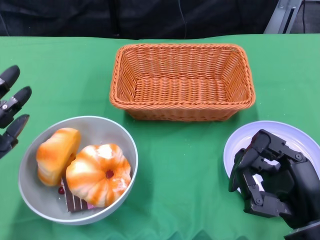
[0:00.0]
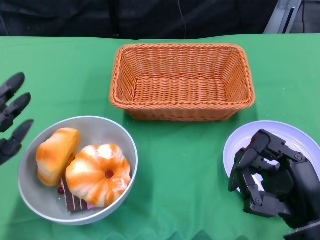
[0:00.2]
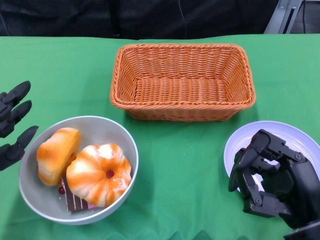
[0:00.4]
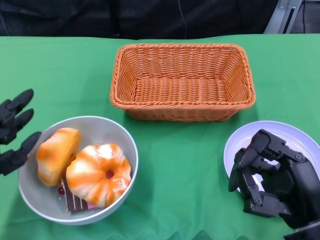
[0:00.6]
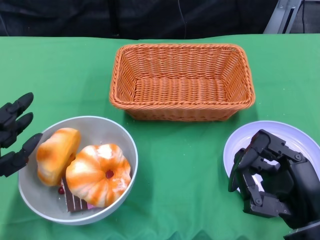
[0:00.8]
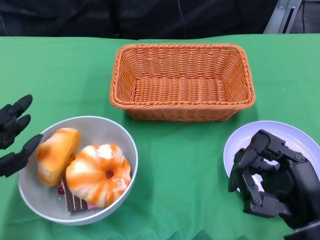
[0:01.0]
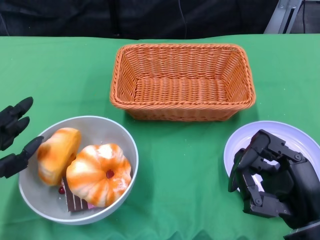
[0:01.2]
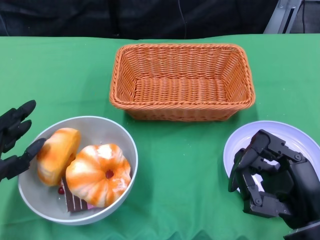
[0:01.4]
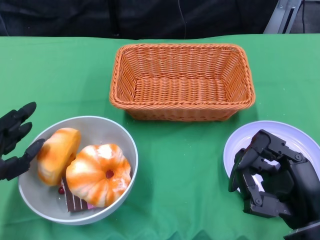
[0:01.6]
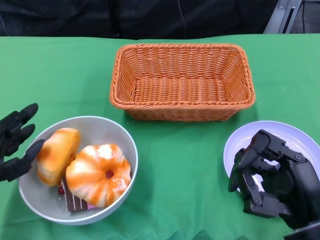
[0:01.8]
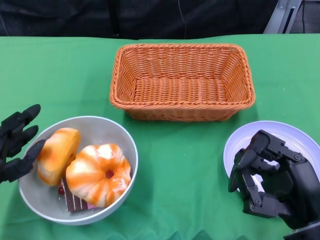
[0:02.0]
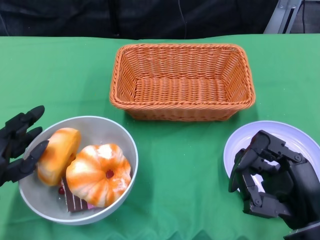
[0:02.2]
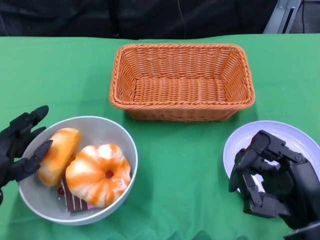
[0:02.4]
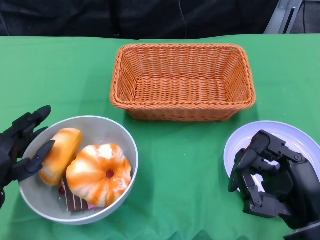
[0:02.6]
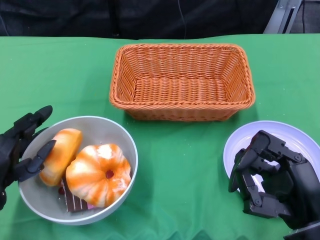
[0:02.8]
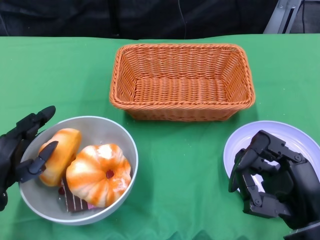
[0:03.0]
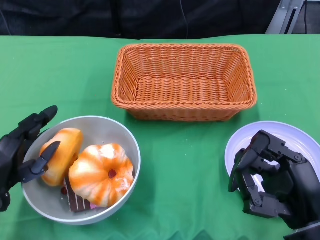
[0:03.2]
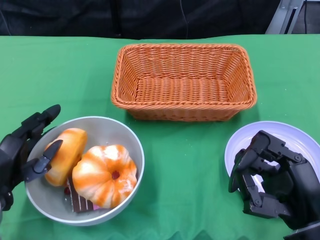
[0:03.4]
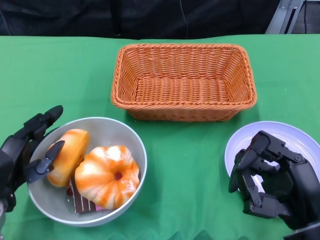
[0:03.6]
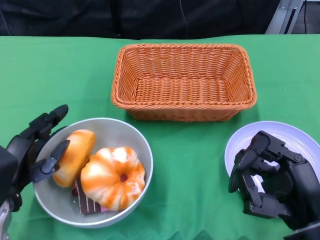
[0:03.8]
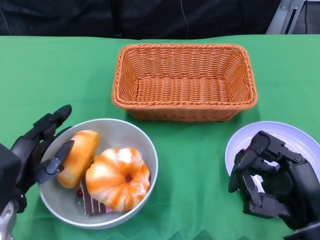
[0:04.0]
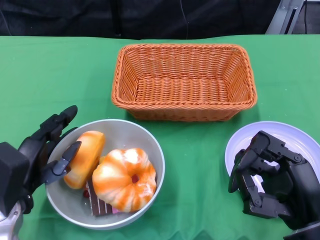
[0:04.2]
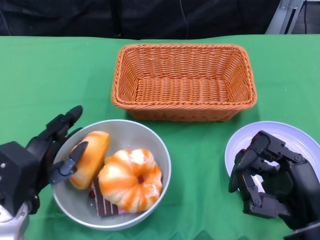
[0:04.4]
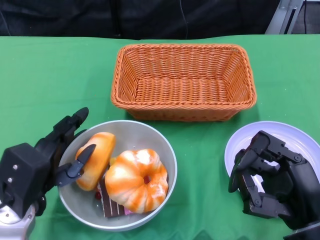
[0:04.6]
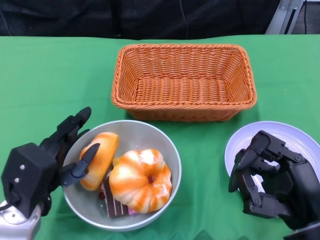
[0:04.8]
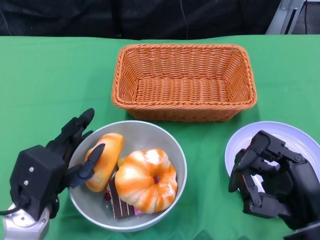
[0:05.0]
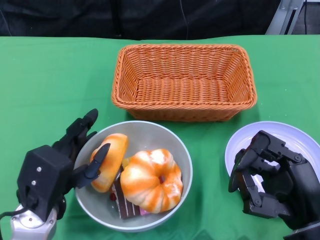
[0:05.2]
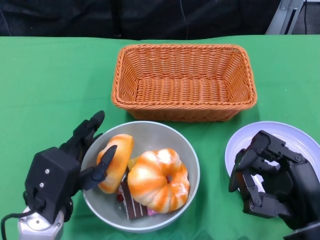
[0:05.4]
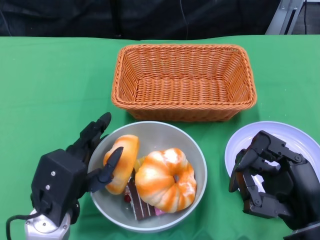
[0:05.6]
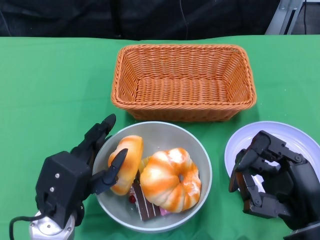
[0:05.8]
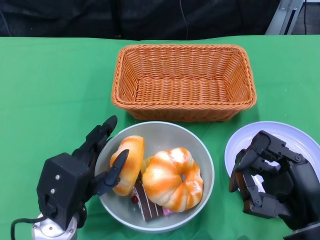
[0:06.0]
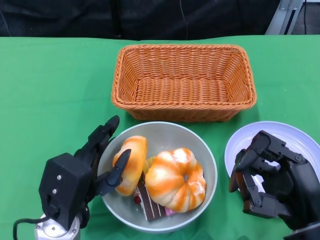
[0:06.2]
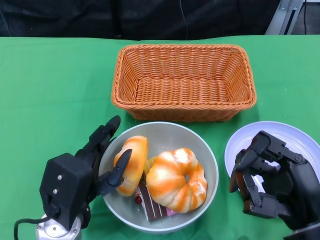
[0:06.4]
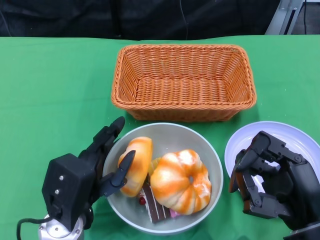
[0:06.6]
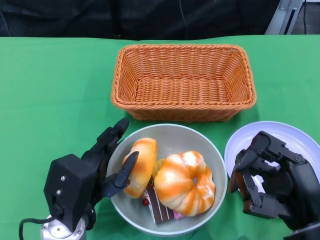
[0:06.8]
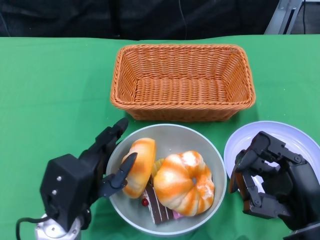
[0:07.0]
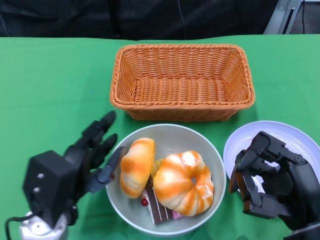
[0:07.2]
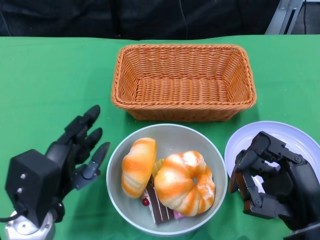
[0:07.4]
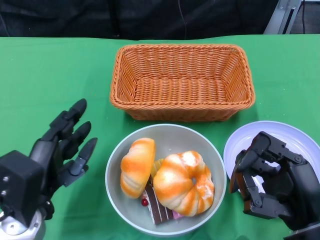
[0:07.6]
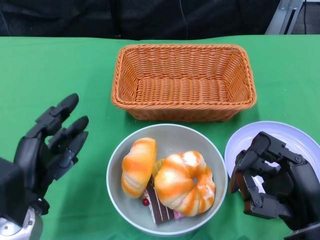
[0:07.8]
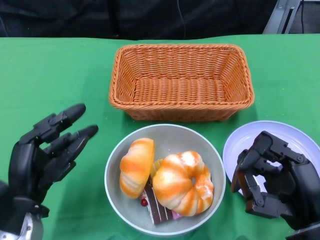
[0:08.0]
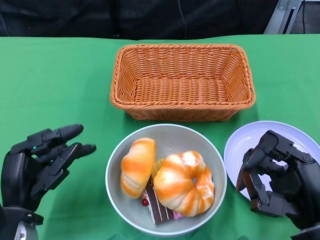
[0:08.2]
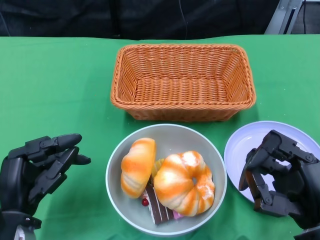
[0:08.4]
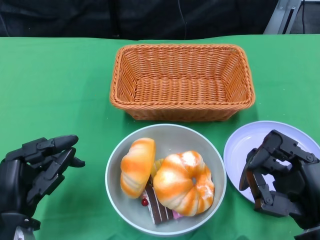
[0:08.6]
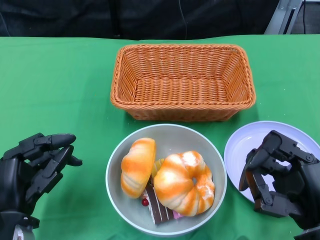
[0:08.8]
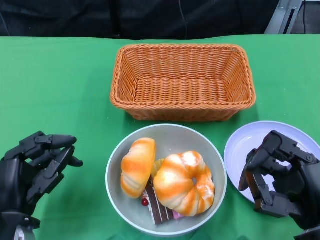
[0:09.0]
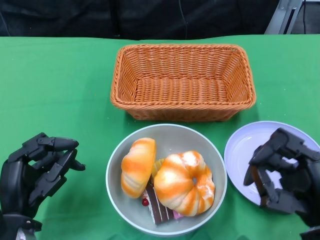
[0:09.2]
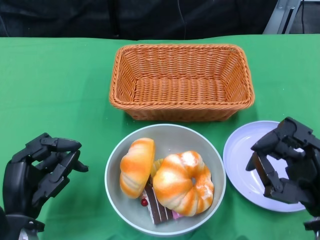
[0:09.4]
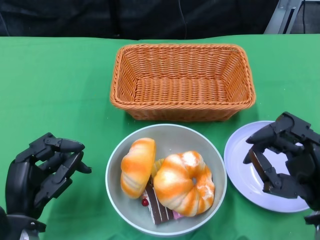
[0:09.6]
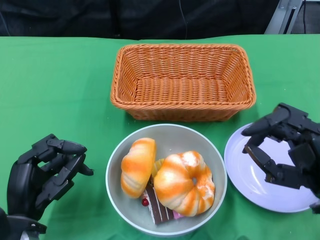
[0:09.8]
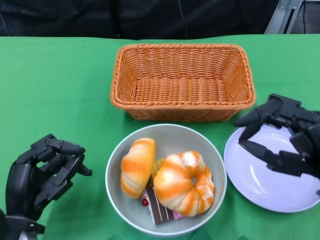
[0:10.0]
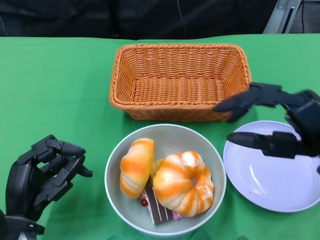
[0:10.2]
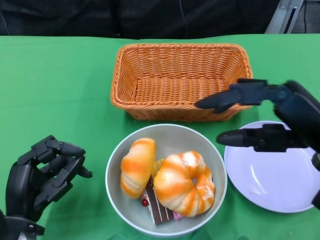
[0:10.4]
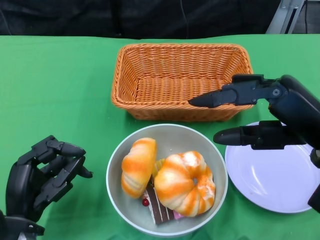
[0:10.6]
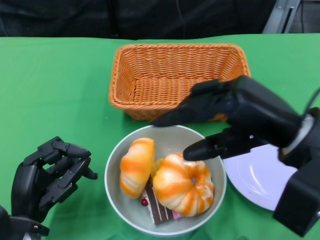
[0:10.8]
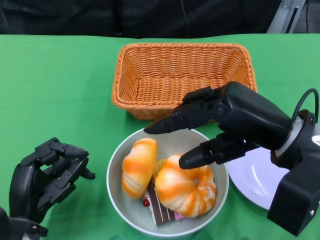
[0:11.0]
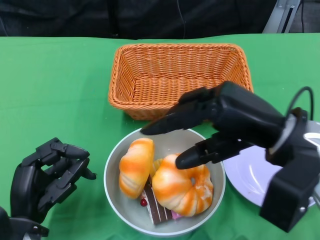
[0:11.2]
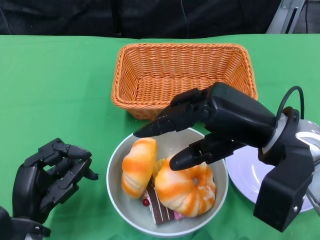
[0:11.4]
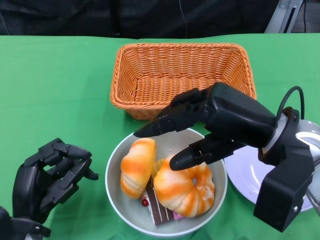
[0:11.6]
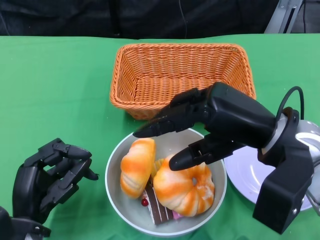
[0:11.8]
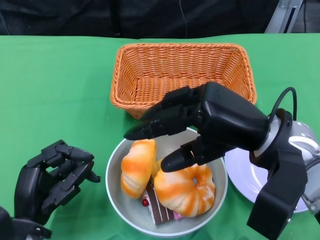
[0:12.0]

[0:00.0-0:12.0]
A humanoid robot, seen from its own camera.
Step, 0:00.0 to 0:08.6: Push the bowl to the center of the table using the left gripper.
0:01.6 to 0:03.0: The hands stay close to where they were, moving slightly.
0:04.4 to 0:06.0: The left hand heads to the right, covering roughly 5 cm.
0:07.6 to 0:09.0: There are only small adjustments of the hands.
0:09.0 to 0:10.4: The right hand goes approximately 10 cm upward and forward.
0:10.4 to 0:12.0: The right hand goes approximately 5 cm to the left.

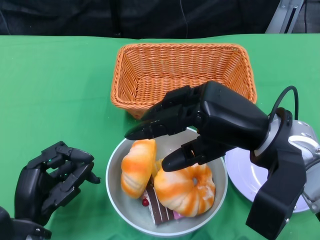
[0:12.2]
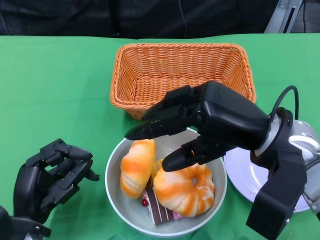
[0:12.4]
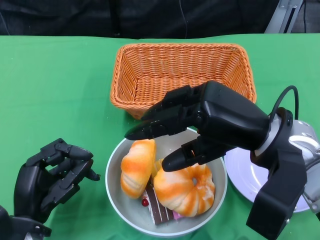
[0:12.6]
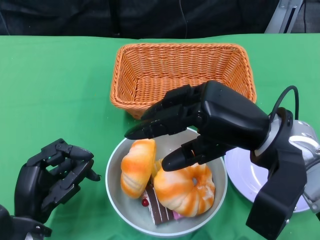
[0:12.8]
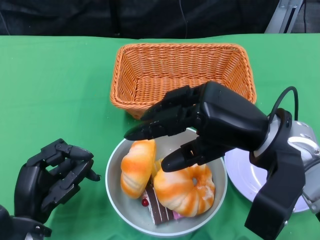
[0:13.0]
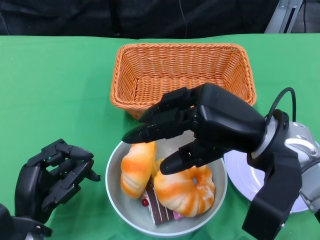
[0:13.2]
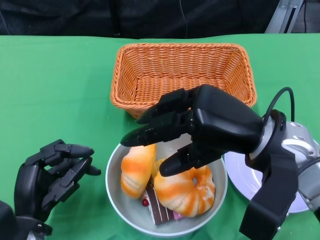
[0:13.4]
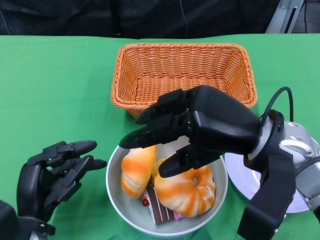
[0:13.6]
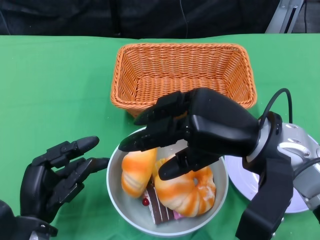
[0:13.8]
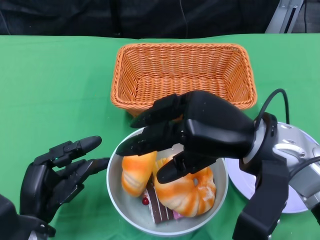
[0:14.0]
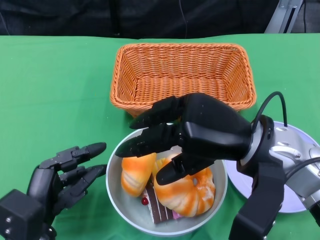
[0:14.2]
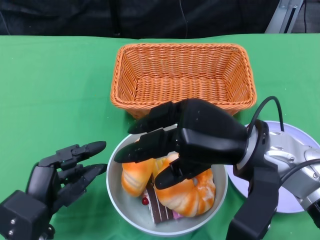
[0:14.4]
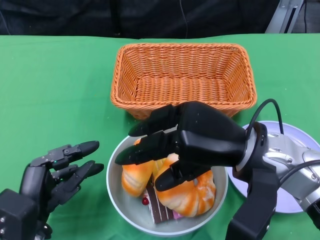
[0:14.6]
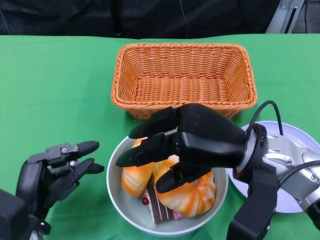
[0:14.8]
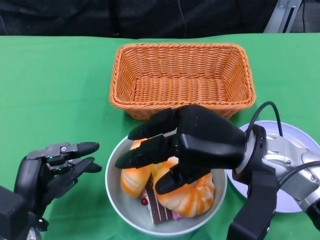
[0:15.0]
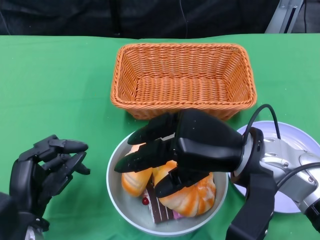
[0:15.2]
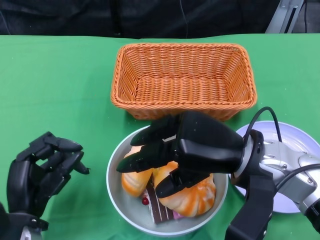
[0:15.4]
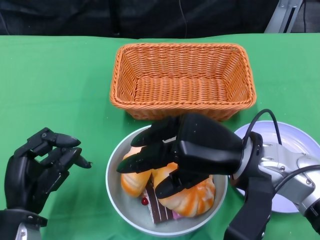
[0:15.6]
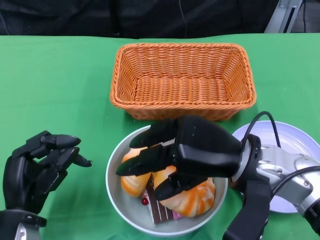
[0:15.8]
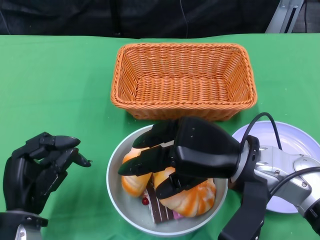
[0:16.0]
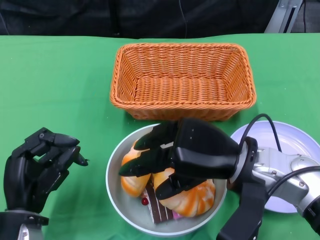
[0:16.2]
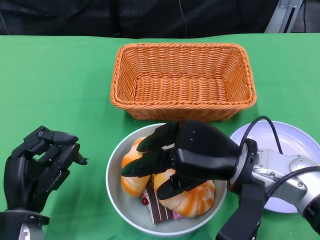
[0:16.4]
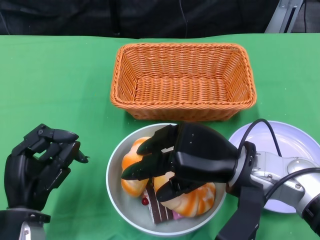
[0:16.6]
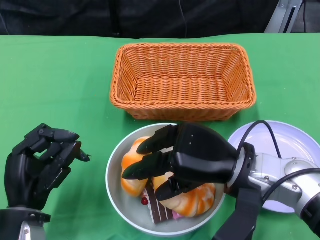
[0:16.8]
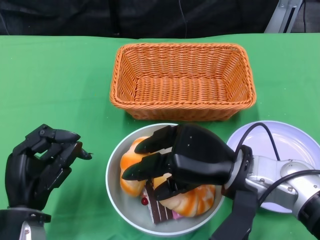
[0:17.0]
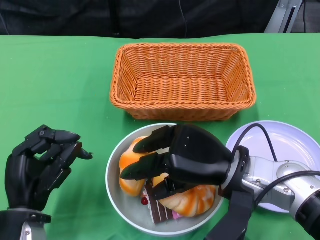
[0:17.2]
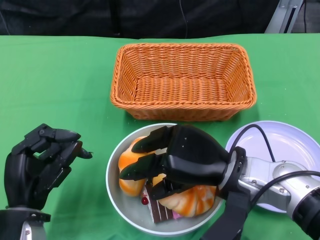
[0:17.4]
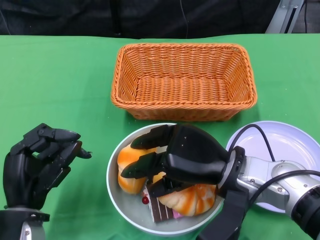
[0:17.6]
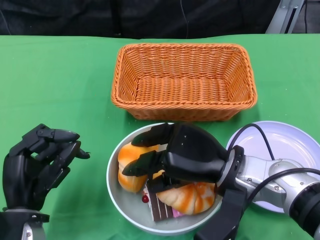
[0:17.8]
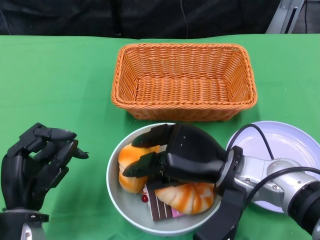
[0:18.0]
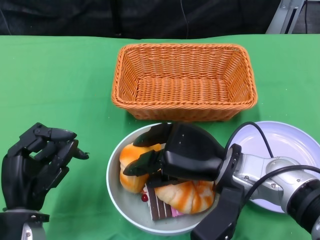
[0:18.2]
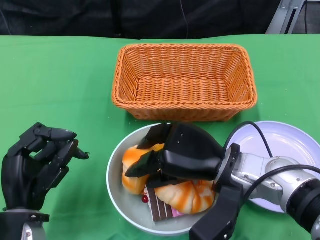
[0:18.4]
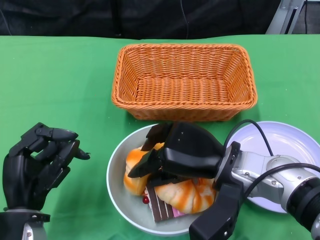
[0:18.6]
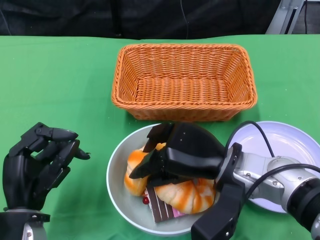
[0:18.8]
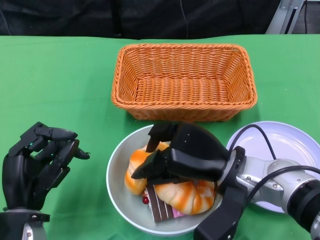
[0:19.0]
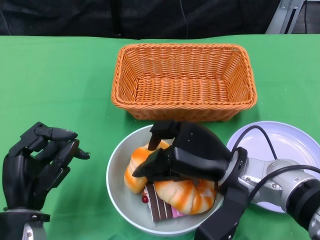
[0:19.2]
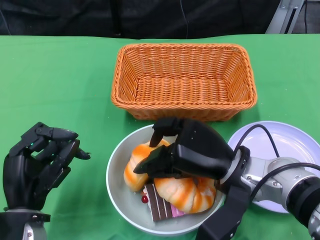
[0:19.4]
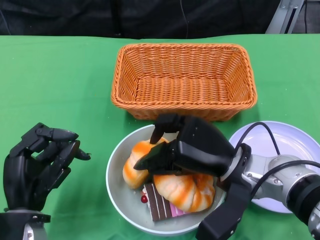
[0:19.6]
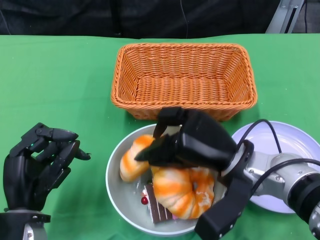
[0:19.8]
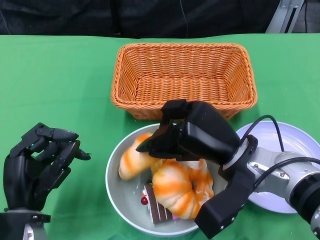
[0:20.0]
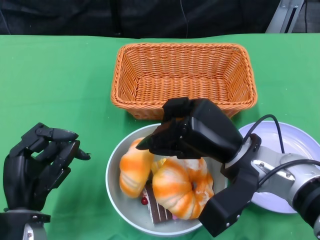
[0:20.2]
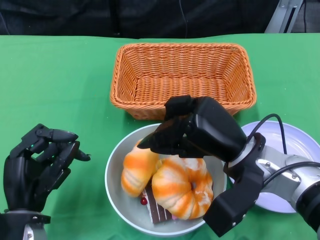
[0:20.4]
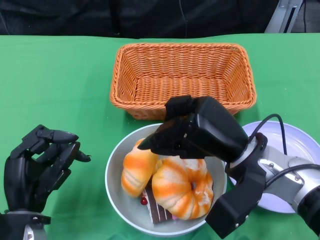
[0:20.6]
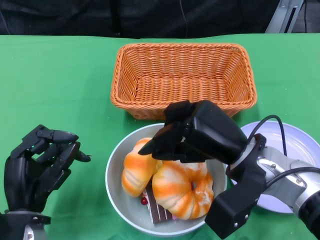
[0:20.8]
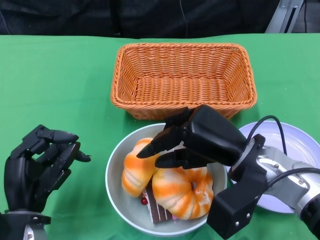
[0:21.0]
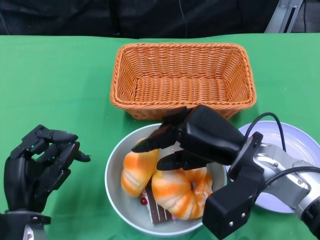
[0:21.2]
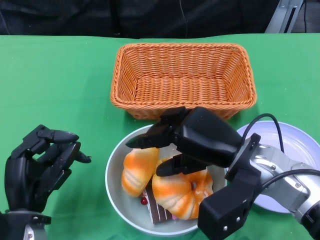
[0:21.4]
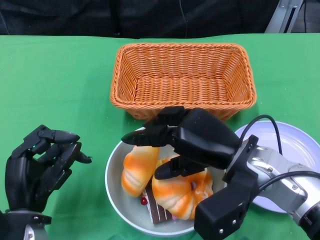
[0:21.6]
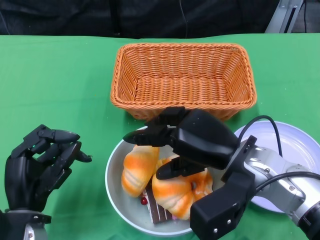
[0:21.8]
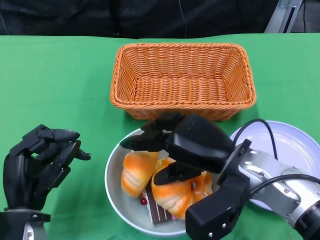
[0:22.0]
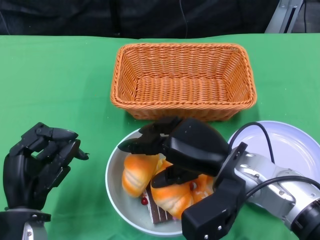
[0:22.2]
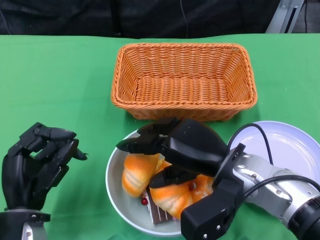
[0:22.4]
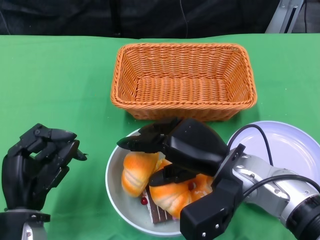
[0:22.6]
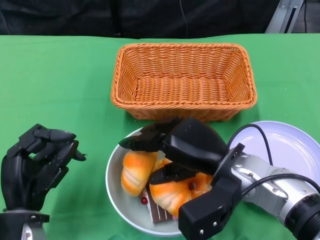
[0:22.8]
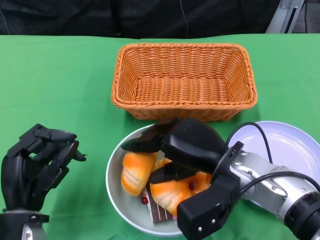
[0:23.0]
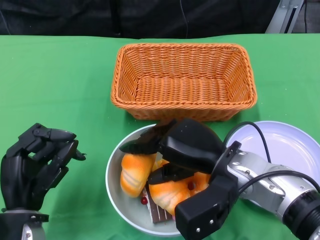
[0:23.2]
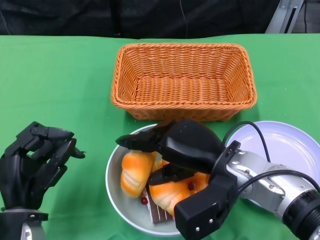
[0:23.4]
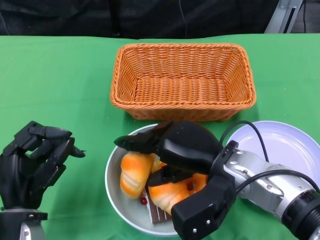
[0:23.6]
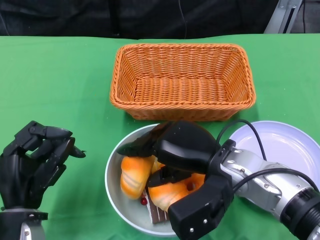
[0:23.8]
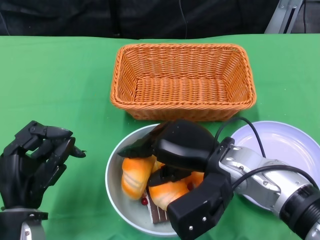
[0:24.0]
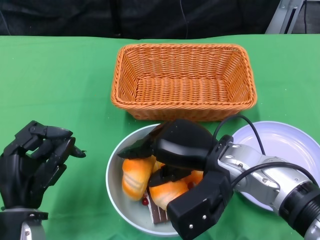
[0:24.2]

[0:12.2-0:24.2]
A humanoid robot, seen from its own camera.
0:12.2 to 0:13.8: There are only small adjustments of the hands.
0:15.2 to 0:16.6: There are only small adjustments of the hands.
0:16.6 to 0:19.8: The hands stay close to where they were, moving slightly.
0:19.8 to 0:22.6: There are only small adjustments of the hands.
0:22.6 to 0:24.2: The hands stay close to where they were, moving slightly.
